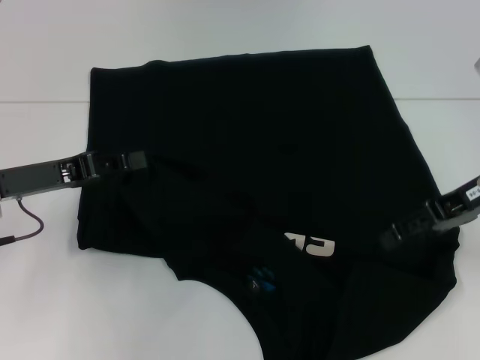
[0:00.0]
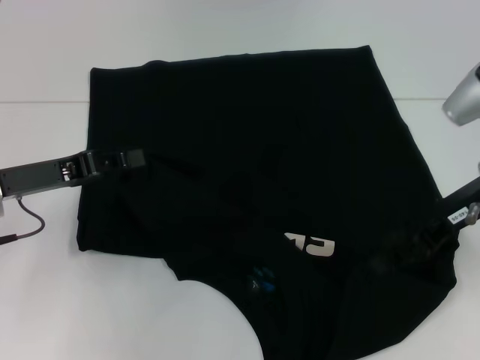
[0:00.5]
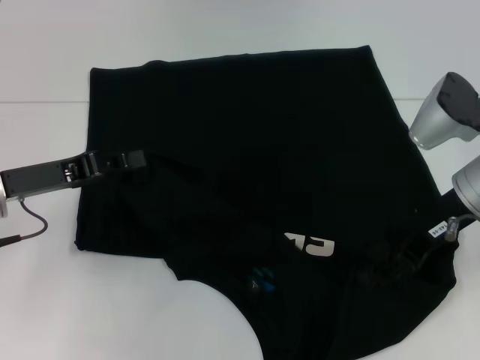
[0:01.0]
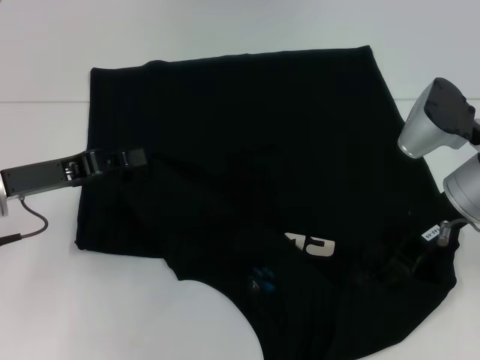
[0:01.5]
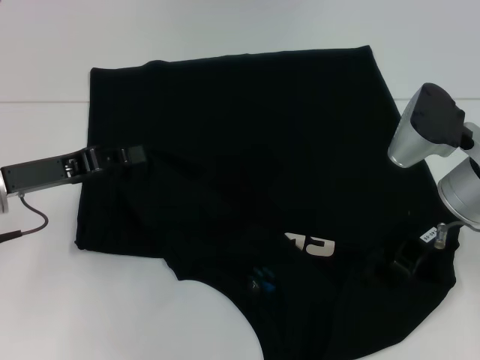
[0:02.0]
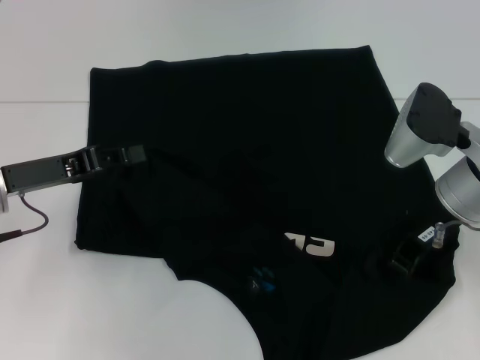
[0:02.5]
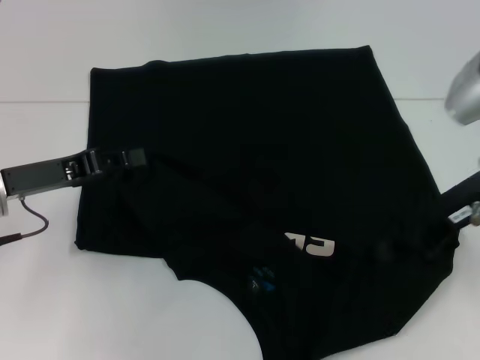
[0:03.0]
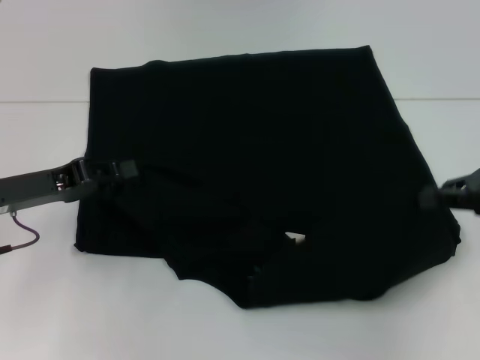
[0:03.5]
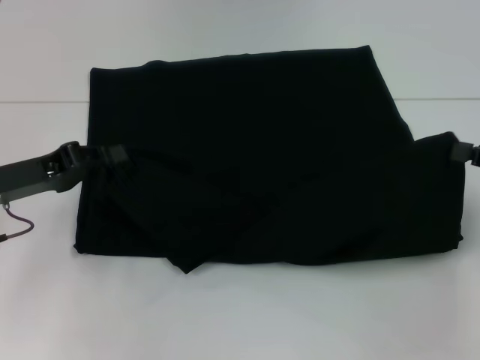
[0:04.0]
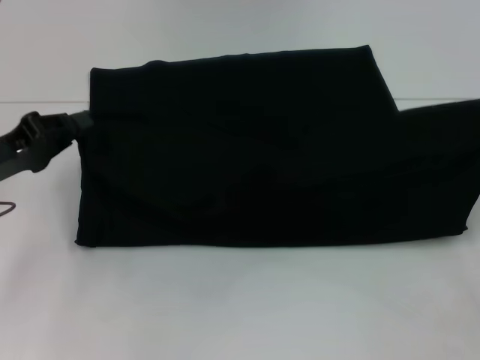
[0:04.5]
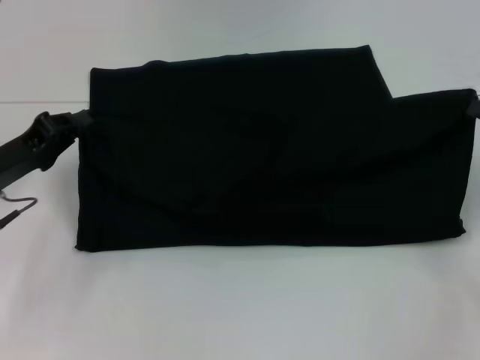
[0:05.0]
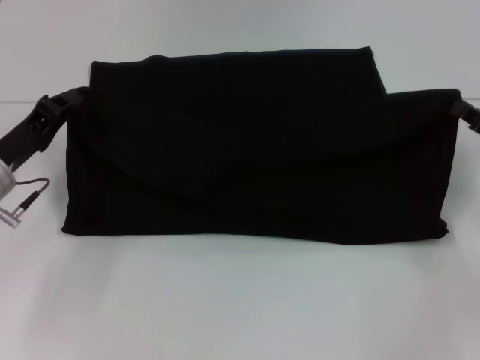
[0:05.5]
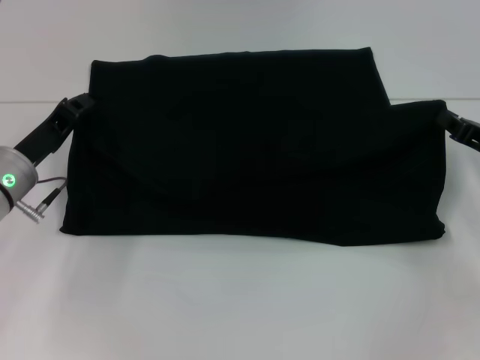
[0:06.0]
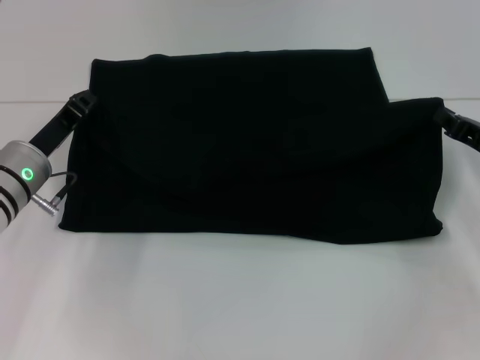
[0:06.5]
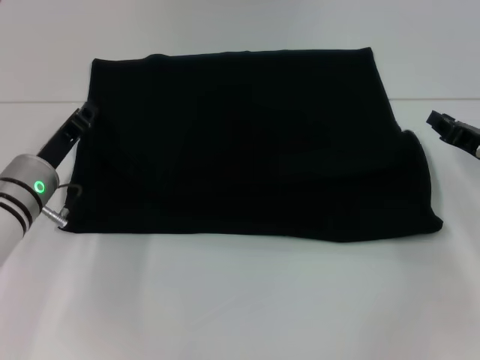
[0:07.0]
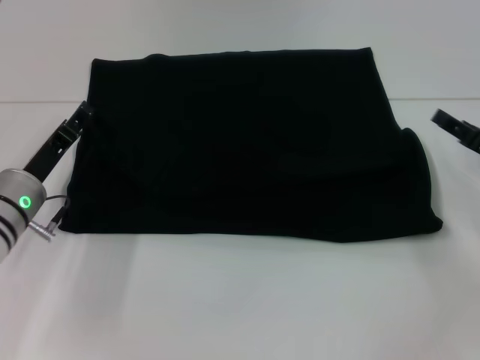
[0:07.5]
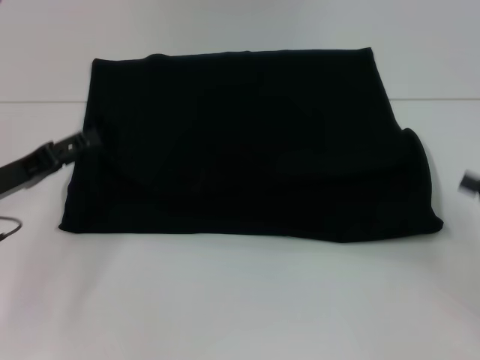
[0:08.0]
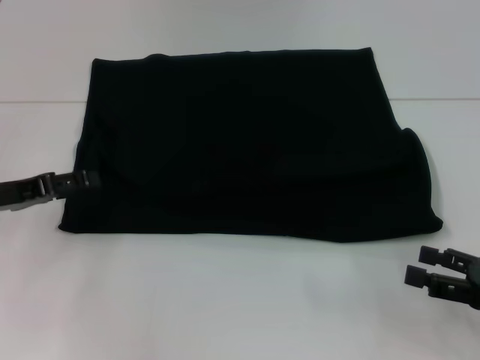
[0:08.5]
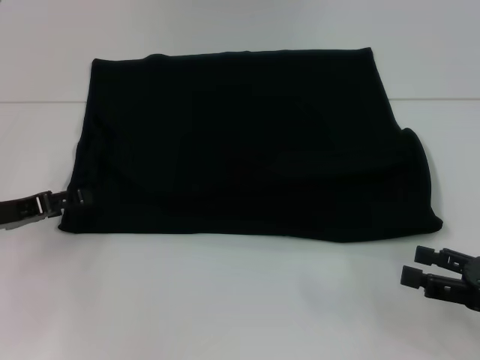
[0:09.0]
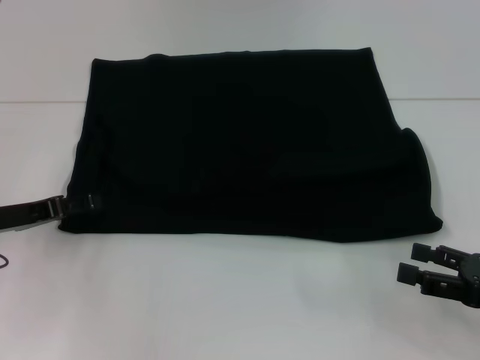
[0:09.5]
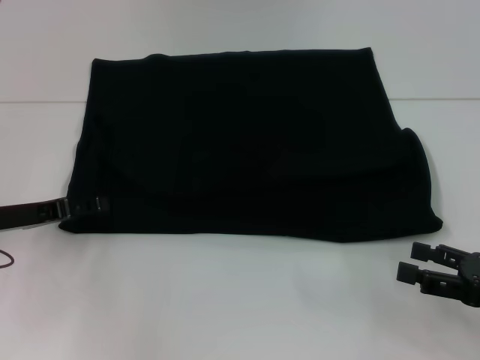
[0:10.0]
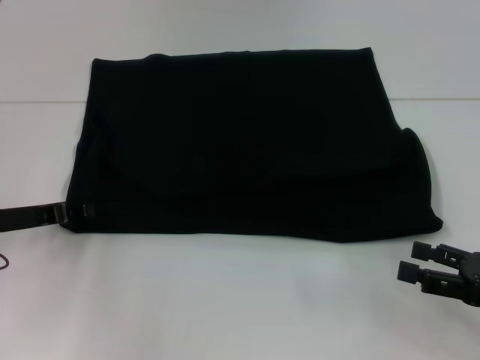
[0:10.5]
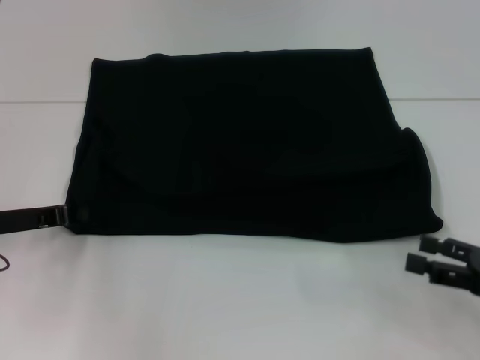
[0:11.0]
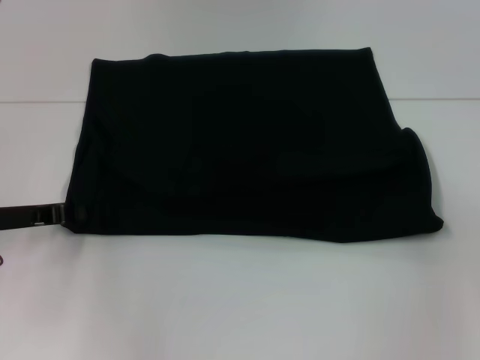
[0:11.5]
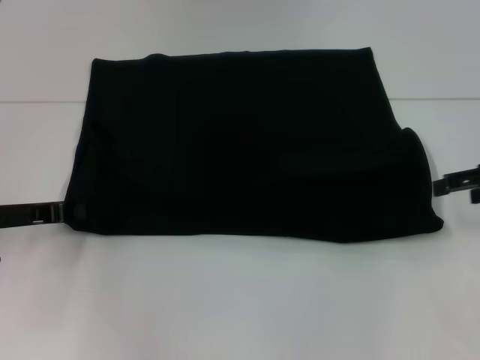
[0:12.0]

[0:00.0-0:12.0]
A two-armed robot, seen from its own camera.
Step, 0:00.0 to 0:07.5: Fold the clothes with your left hand.
Step, 0:00.0 to 0:07.5: Fold the clothes with your right hand.
0:00.0 to 0:02.0: The right gripper travels to the left by some 5 cm.
0:02.0 to 0:04.0: The right gripper travels to the right by roughly 15 cm, and closes.
0:04.0 to 0:06.0: The left gripper changes place by approximately 5 cm. Meanwhile the right gripper goes some 5 cm downward.
0:06.0 to 0:08.0: The right gripper heads backward and to the right, covering roughly 10 cm, and opens. Meanwhile the left gripper ends up approximately 5 cm from where it was, and opens.
0:08.0 to 0:10.0: The right gripper changes place by about 5 cm.
0:10.0 to 0:12.0: The left gripper closes up. Meanwhile the right gripper is displaced forward and upward by about 15 cm.

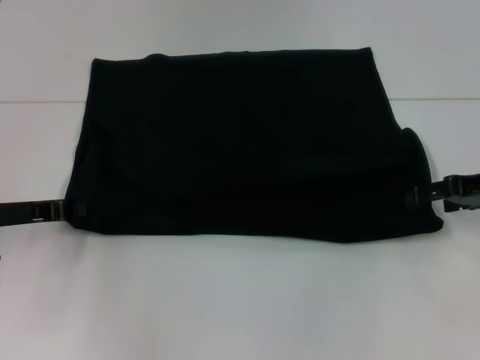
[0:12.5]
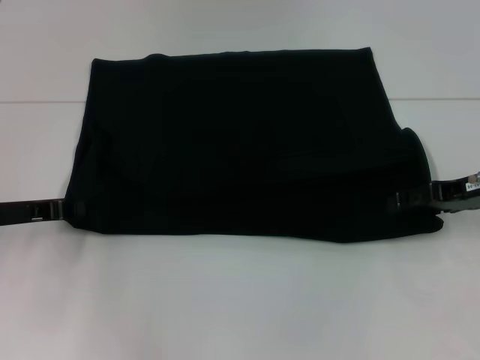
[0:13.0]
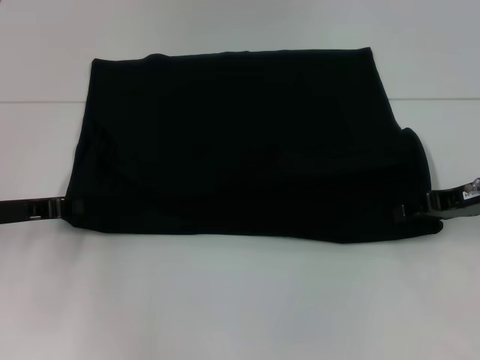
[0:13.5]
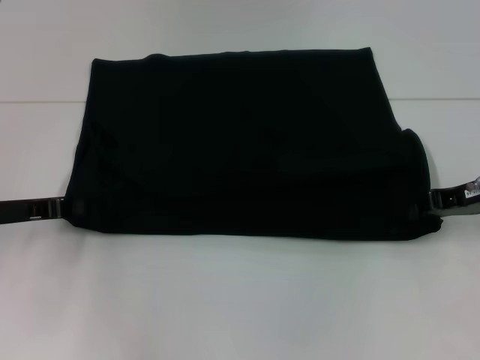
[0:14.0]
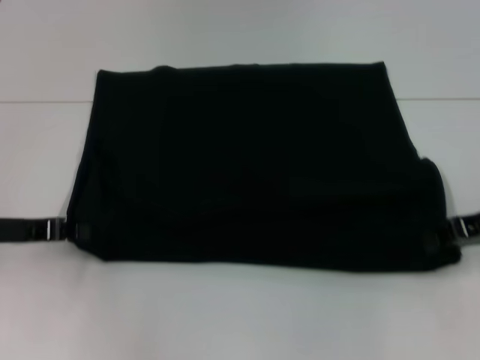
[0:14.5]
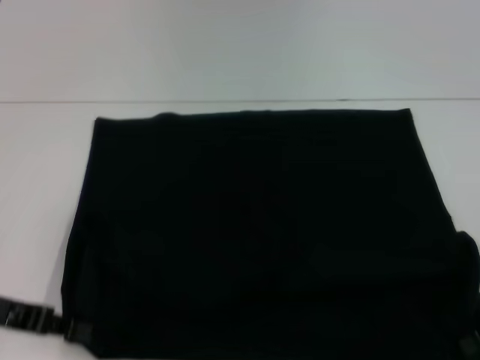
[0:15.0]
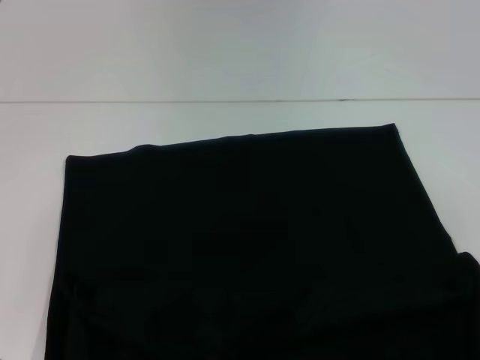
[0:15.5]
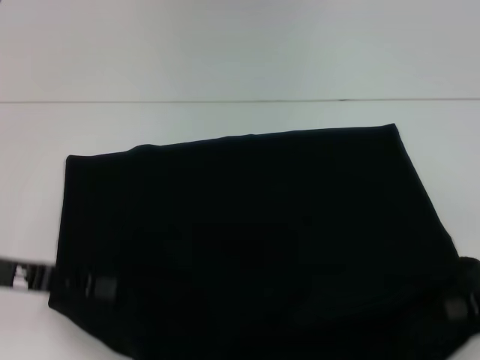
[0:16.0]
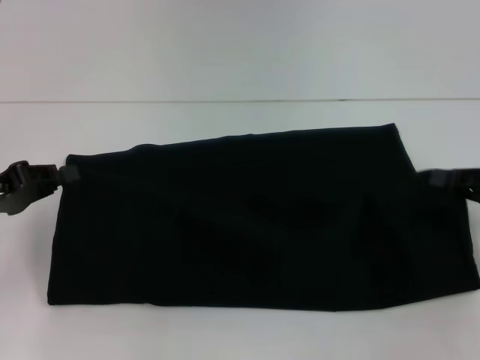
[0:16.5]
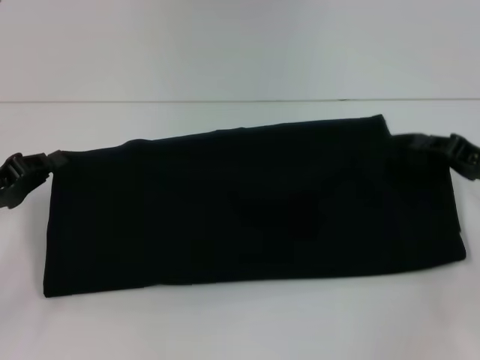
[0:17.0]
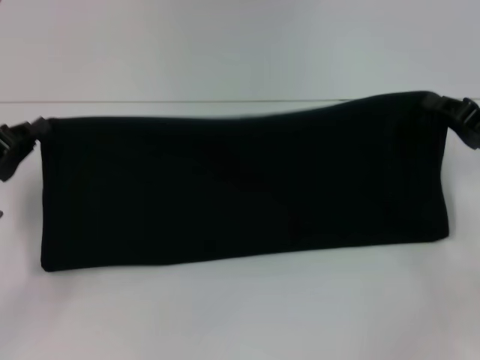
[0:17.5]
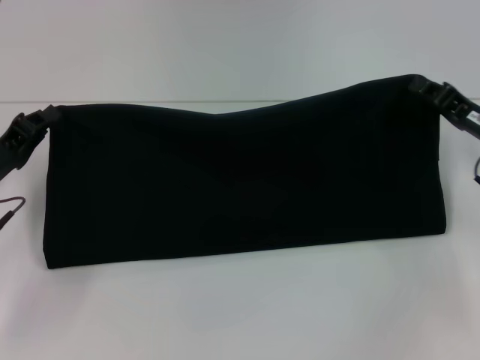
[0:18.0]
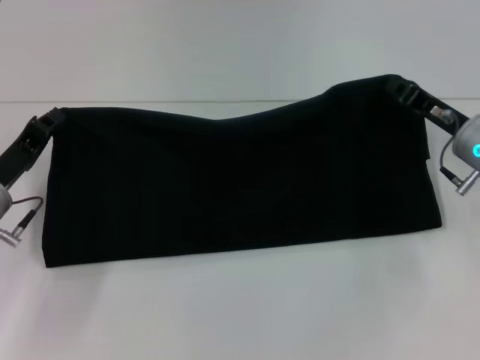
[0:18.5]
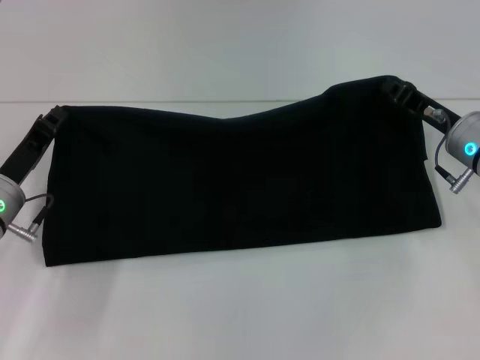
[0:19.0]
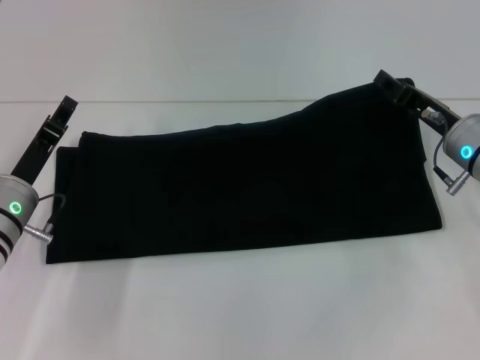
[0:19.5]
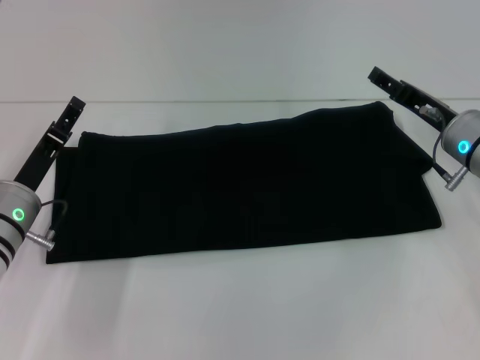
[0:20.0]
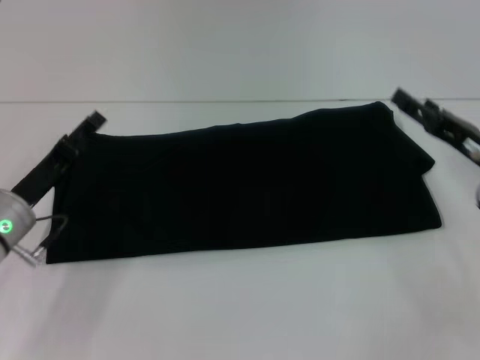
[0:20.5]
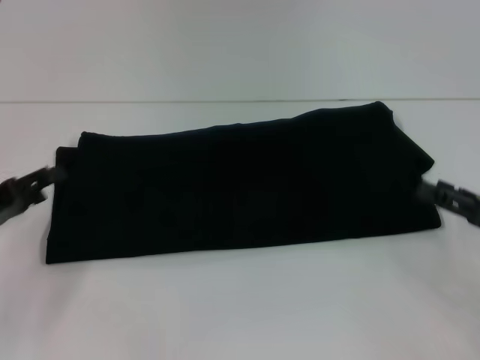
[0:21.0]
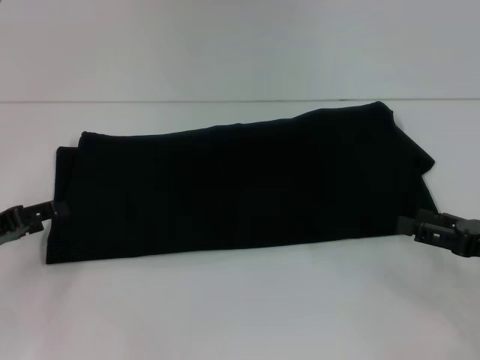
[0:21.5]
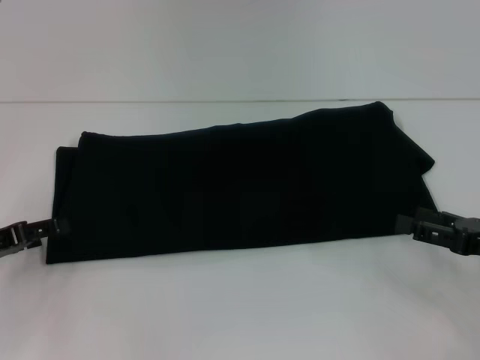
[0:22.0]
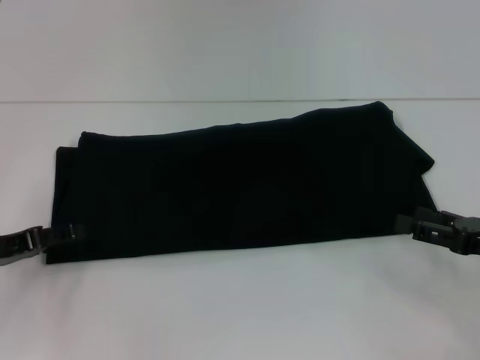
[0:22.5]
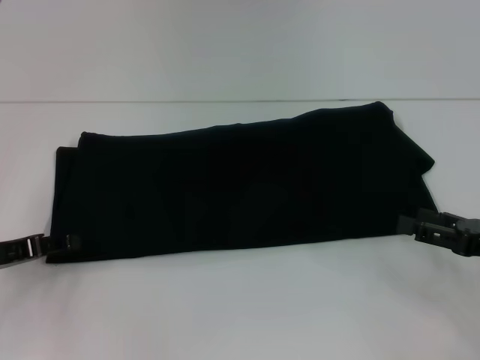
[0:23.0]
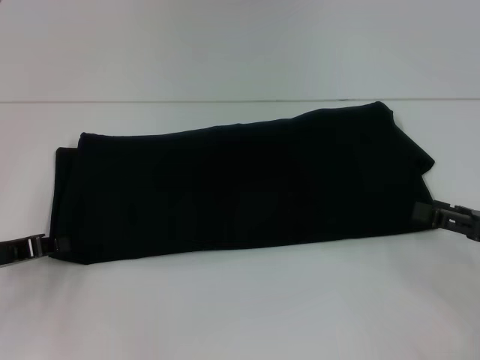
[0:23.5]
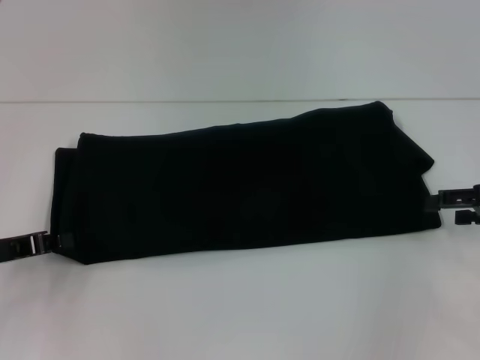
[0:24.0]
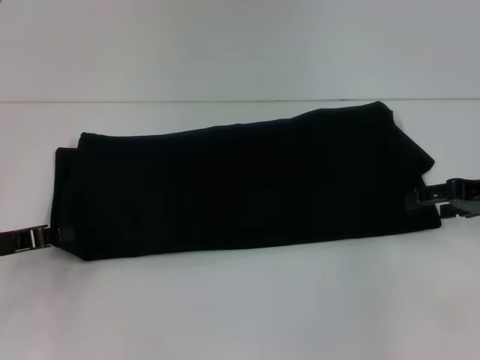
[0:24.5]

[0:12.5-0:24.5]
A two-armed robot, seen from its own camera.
Step, 0:12.5 to 0:15.0: Pull the clothes with your left hand.
Step, 0:12.5 to 0:15.0: Pull the clothes with your right hand.
Step, 0:15.5 to 0:20.5: Fold the clothes with your right hand.
0:12.5 to 0:14.5: The right gripper closes up.
0:14.5 to 0:16.5: The left gripper reaches about 10 cm backward, then returns.
0:16.5 to 0:18.5: The right gripper shifts approximately 15 cm to the left and forward. The left gripper goes roughly 10 cm downward and to the right.
0:18.5 to 0:20.5: The left gripper opens up; the right gripper shifts by roughly 5 cm, and opens.
0:20.5 to 0:22.5: The left gripper moves to the left, about 5 cm, while the right gripper moves backward, some 5 cm.
0:22.5 to 0:24.5: The right gripper travels forward and upward by approximately 10 cm. The left gripper closes.

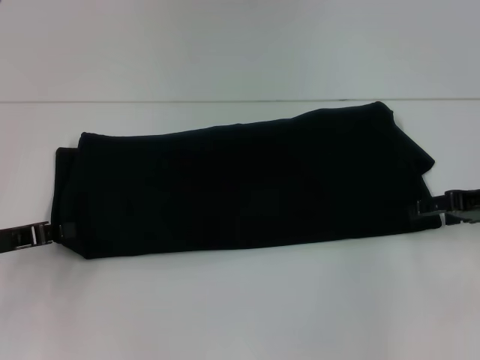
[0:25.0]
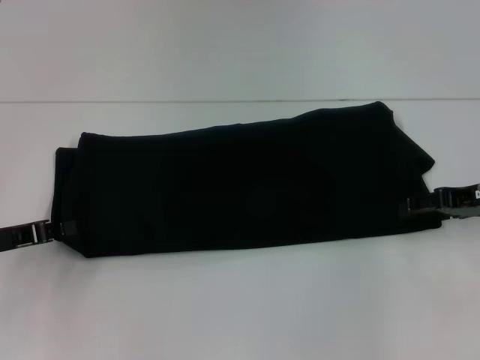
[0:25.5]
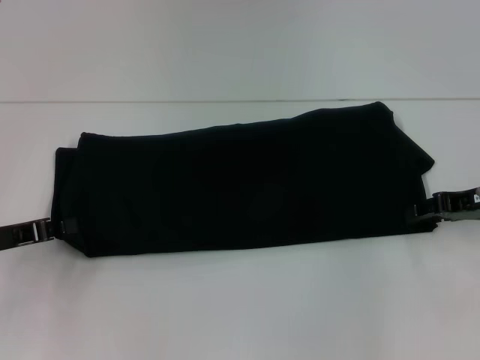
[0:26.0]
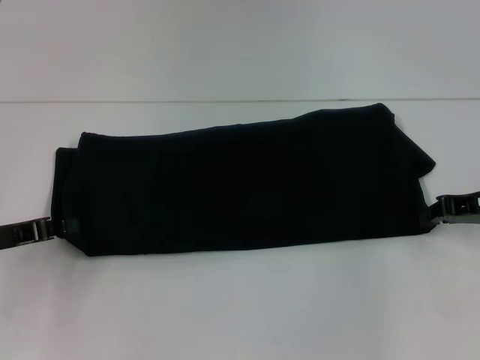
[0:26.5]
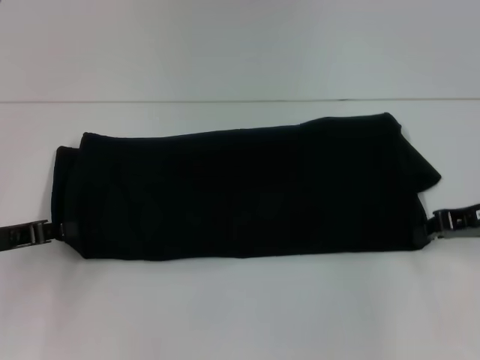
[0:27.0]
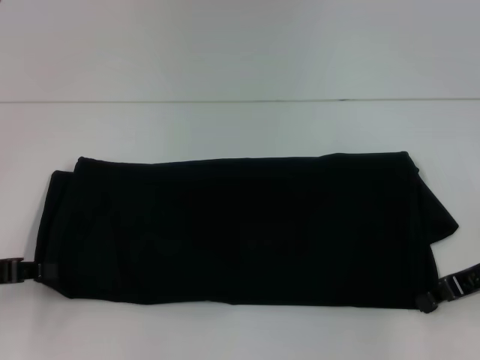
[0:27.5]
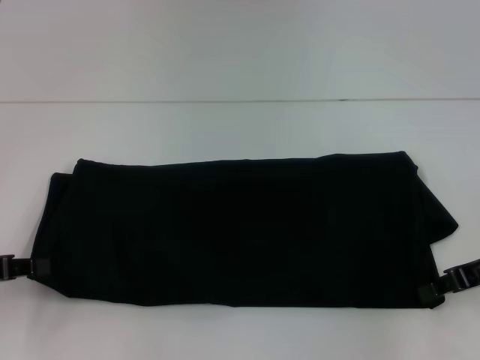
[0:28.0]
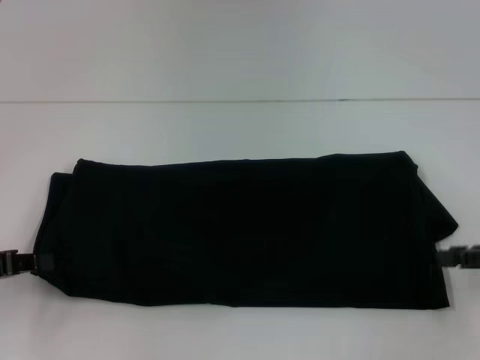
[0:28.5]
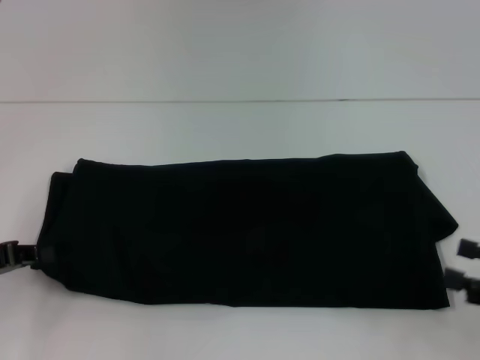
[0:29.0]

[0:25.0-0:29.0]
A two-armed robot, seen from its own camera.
0:25.0 to 0:27.0: The right gripper closes up.
0:27.0 to 0:29.0: The right gripper travels backward by about 15 cm, and opens its fingers.
